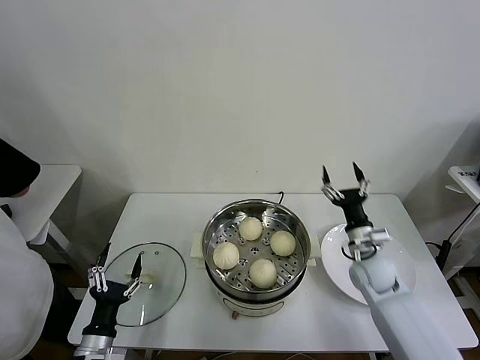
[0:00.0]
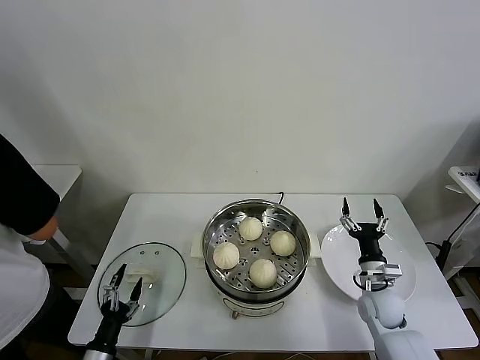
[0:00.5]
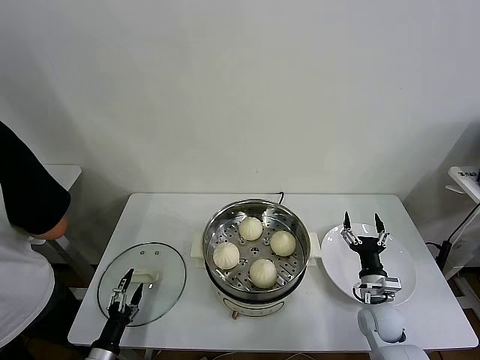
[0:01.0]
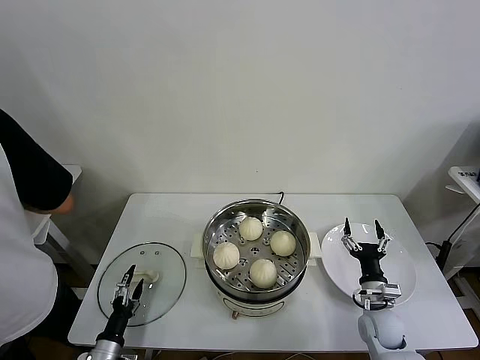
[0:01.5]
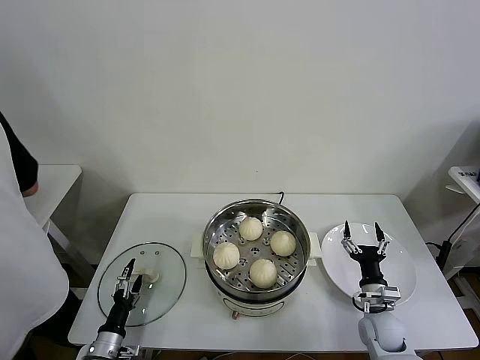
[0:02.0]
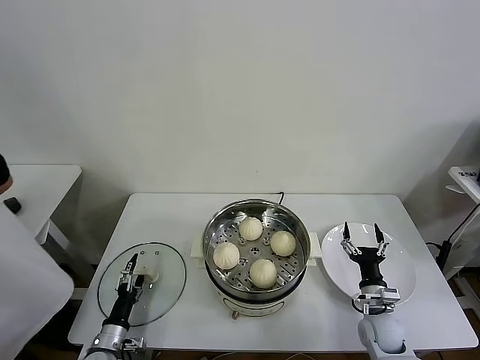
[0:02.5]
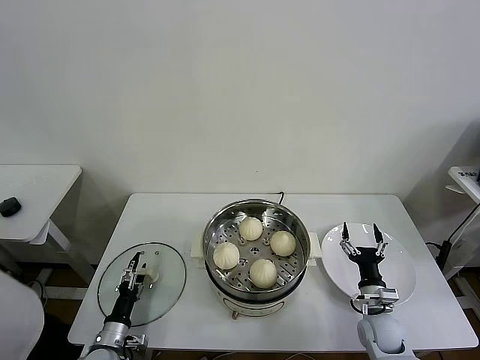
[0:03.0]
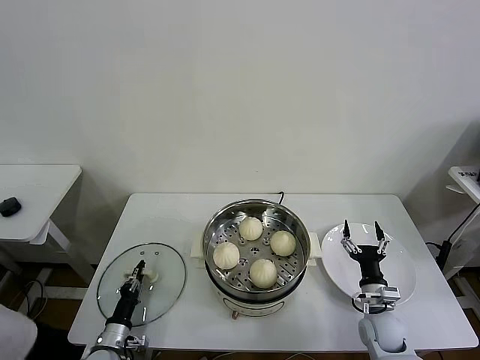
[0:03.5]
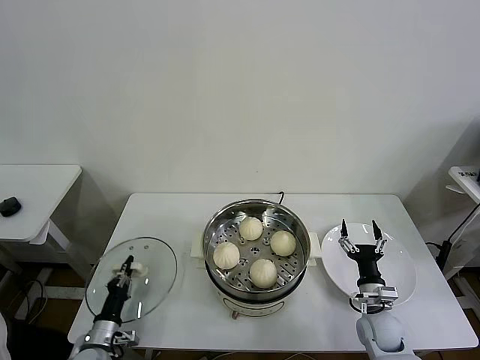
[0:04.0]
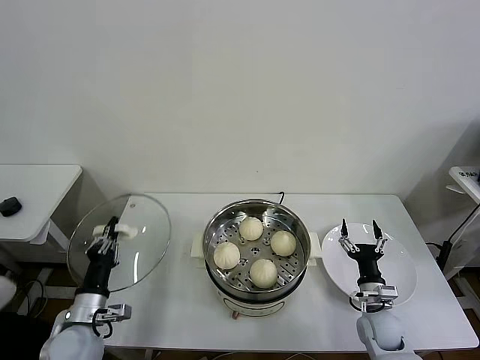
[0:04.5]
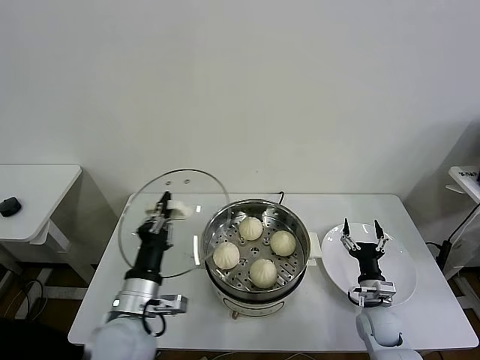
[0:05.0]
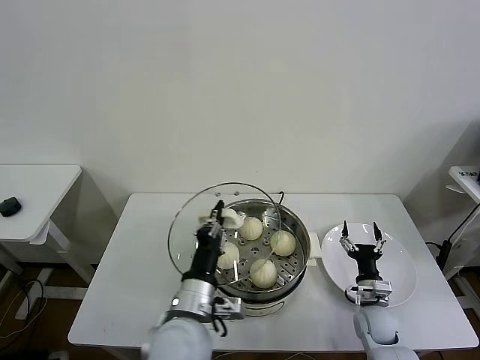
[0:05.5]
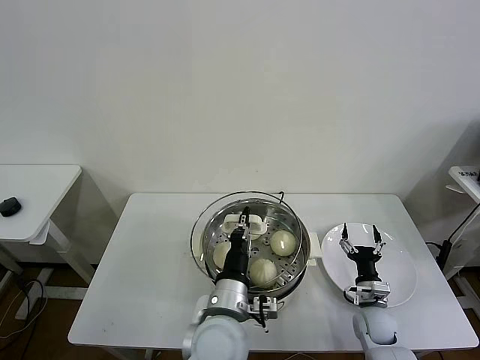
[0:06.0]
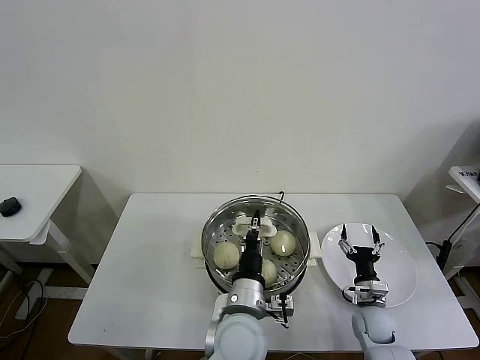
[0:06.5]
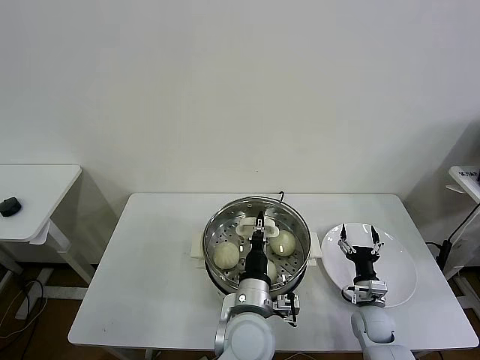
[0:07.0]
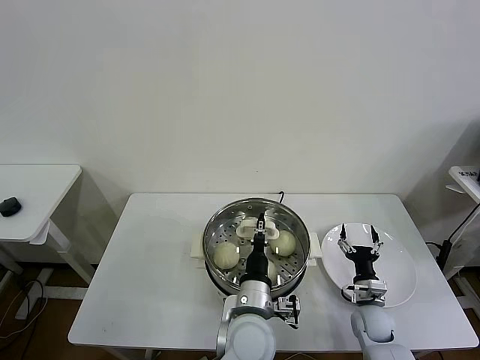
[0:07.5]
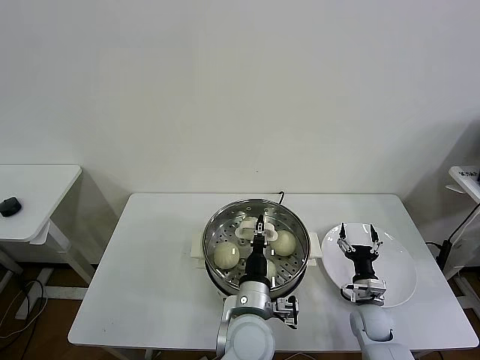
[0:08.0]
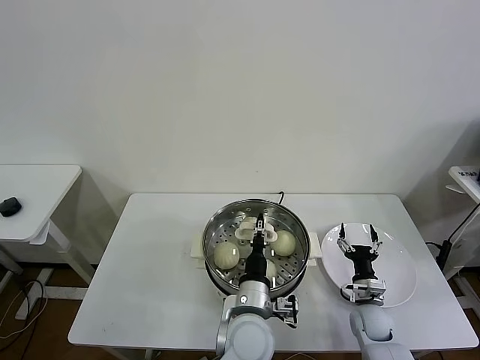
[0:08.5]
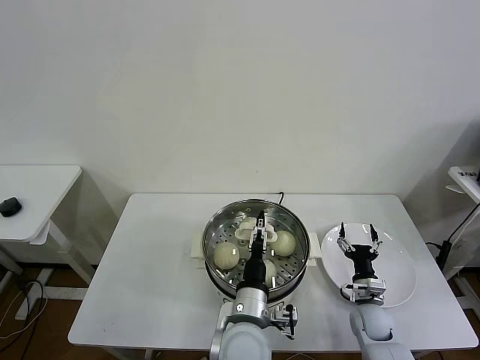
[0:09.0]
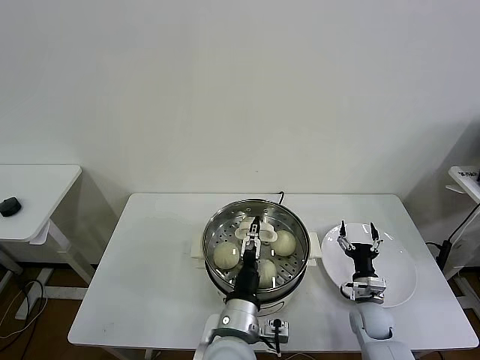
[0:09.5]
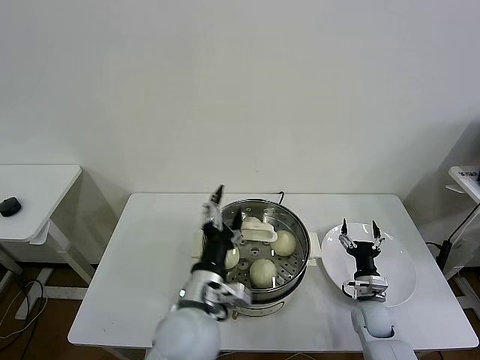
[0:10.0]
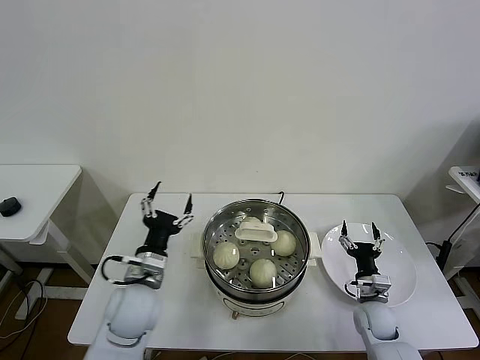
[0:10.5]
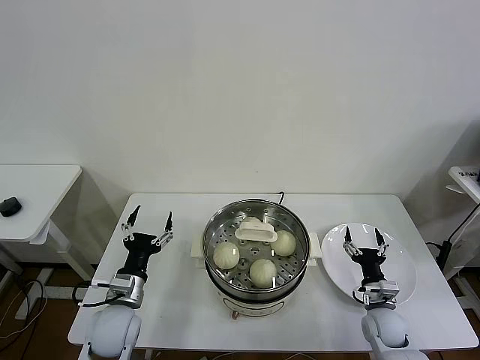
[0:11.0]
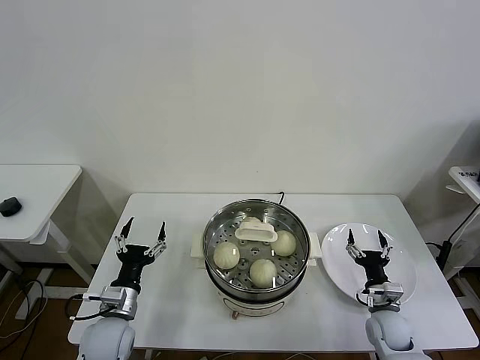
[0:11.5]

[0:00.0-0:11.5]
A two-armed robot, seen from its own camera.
Task of the whole recording: take steamed baozi put them in steamer then cover it.
Step, 0:00.0 to 0:03.5: Grasp the pot lid with left gripper.
Step, 0:04.0 to 0:09.0: Place the pot lid on the steamer with left gripper.
0:00.0 to 0:02.0: The right gripper moves downward and backward, roughly 15 cm. Meanwhile the left gripper moves downward, roughly 10 cm.
0:02.0 to 0:04.0: The left gripper closes up.
0:04.0 to 0:06.0: The left gripper shifts about 35 cm to the right and upward.
0:06.0 to 0:07.5: The left gripper moves to the right, some 5 cm.
0:07.5 to 0:09.5: The left gripper ends up some 5 cm from where it was, and opens its fingers.
0:09.5 to 0:11.5: The left gripper travels to the left by some 25 cm.
